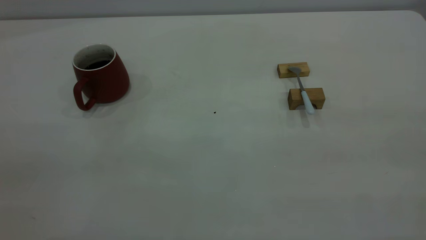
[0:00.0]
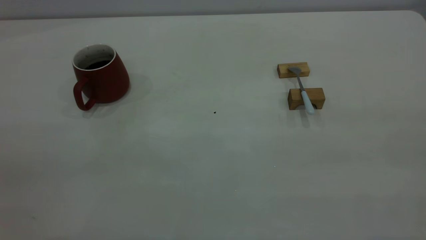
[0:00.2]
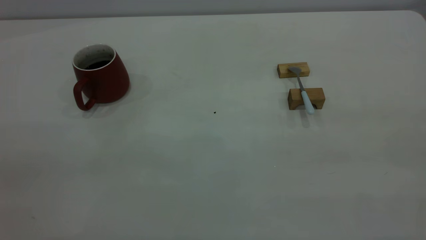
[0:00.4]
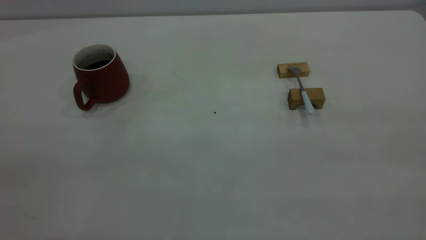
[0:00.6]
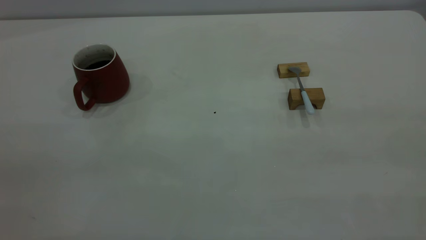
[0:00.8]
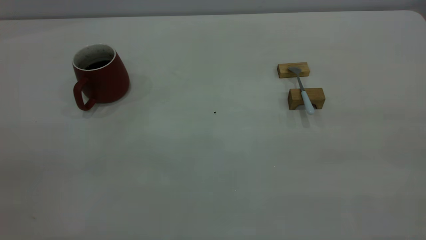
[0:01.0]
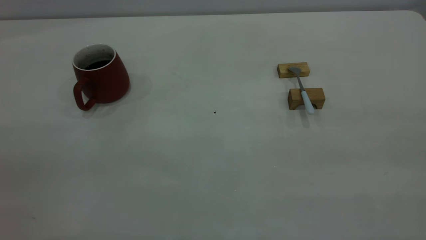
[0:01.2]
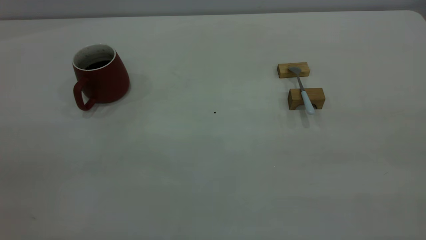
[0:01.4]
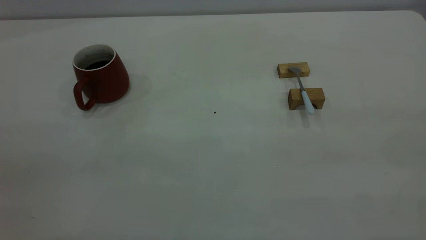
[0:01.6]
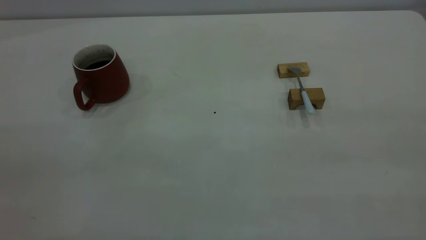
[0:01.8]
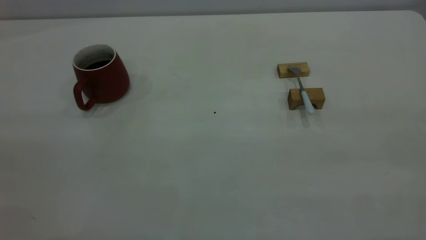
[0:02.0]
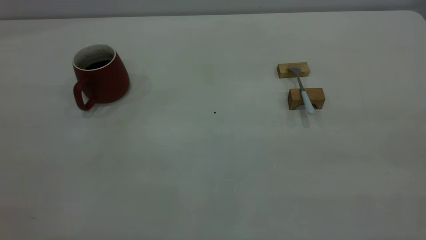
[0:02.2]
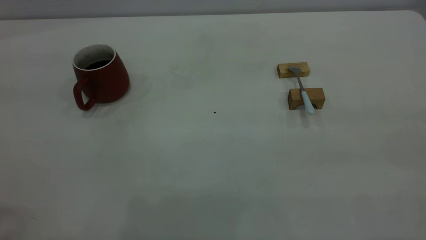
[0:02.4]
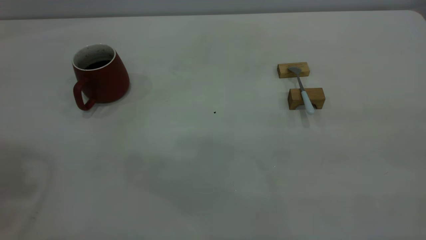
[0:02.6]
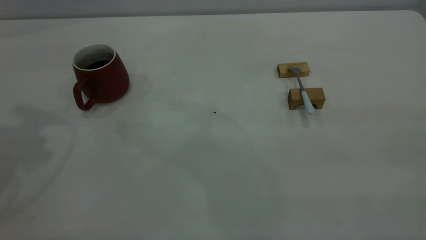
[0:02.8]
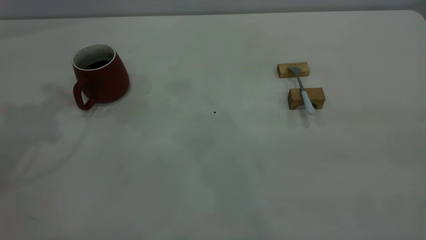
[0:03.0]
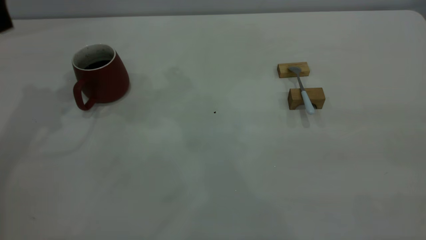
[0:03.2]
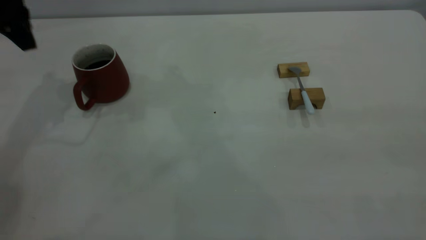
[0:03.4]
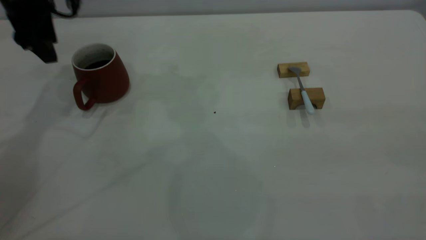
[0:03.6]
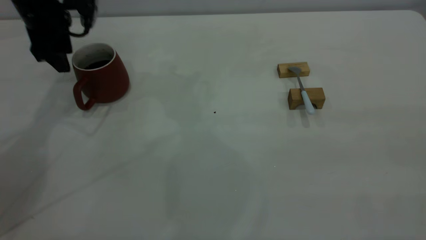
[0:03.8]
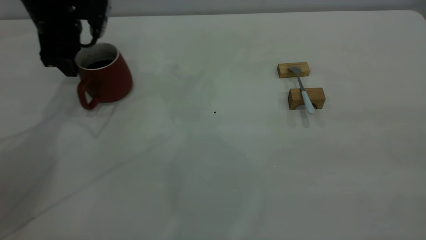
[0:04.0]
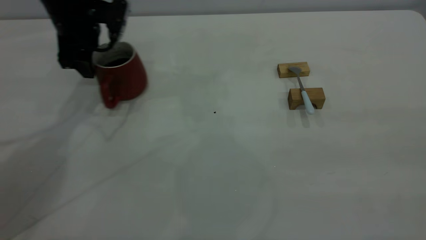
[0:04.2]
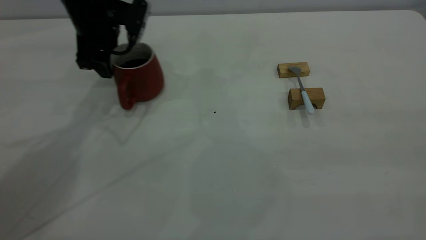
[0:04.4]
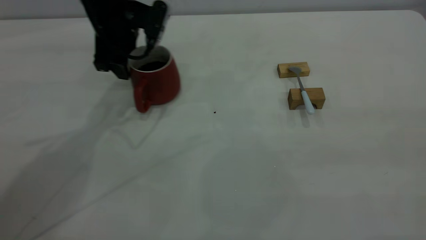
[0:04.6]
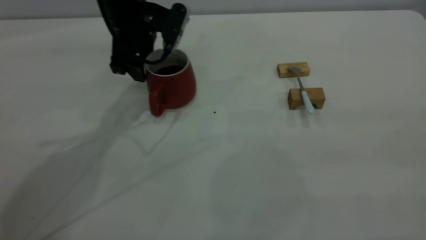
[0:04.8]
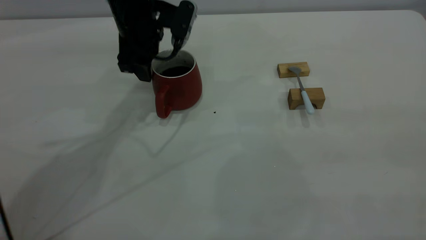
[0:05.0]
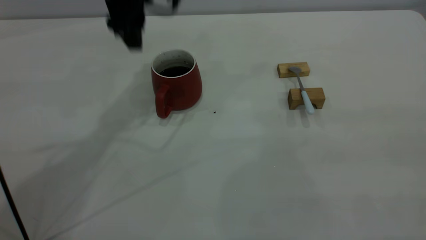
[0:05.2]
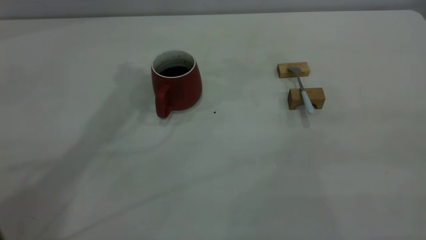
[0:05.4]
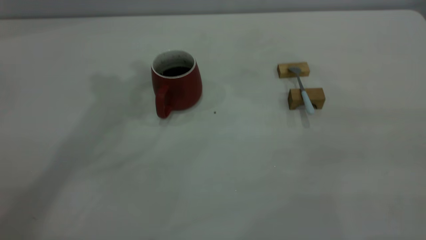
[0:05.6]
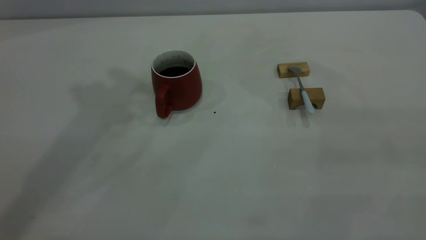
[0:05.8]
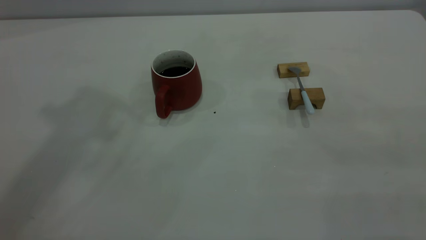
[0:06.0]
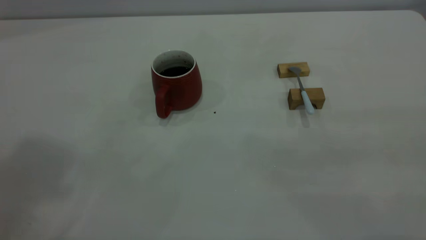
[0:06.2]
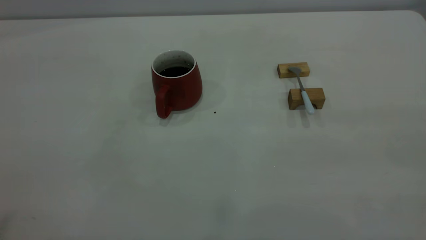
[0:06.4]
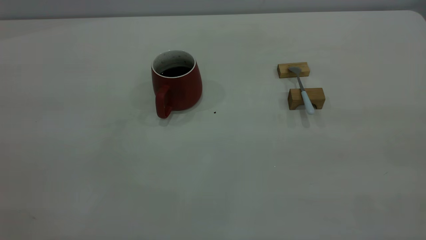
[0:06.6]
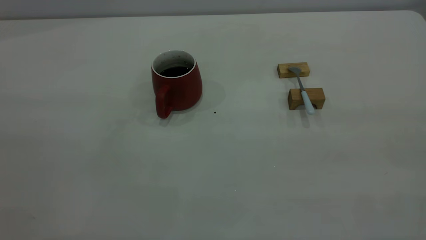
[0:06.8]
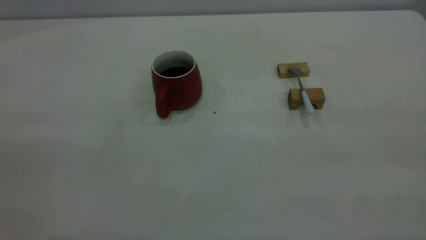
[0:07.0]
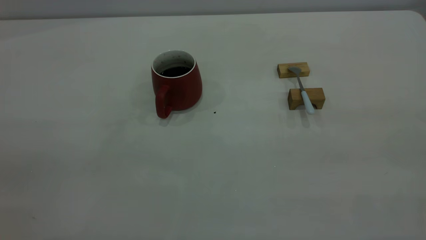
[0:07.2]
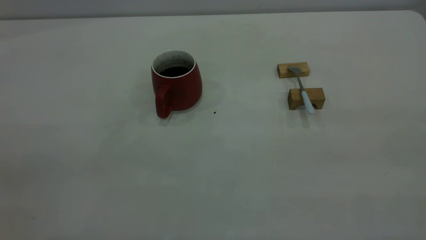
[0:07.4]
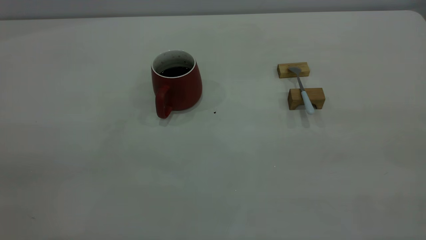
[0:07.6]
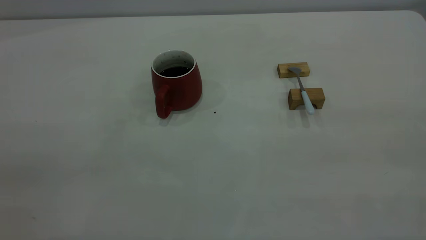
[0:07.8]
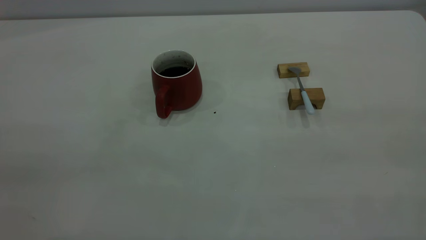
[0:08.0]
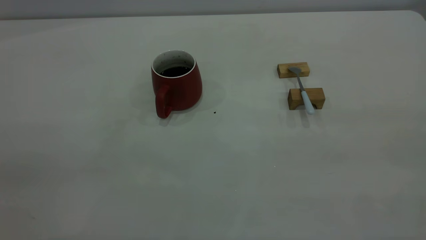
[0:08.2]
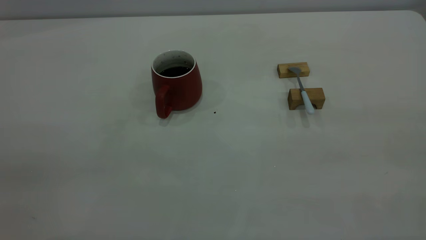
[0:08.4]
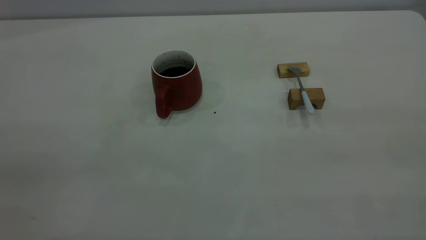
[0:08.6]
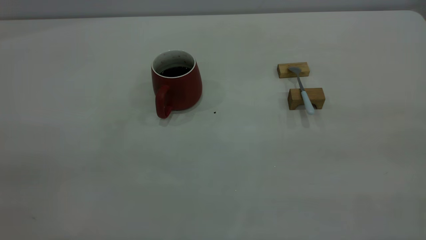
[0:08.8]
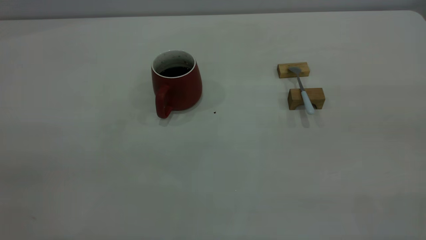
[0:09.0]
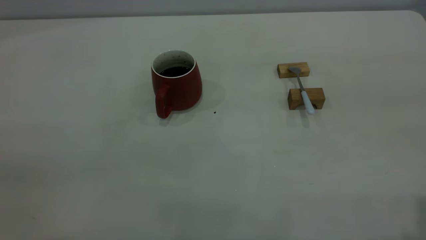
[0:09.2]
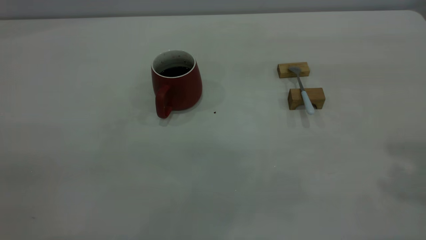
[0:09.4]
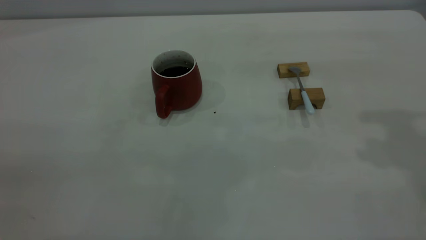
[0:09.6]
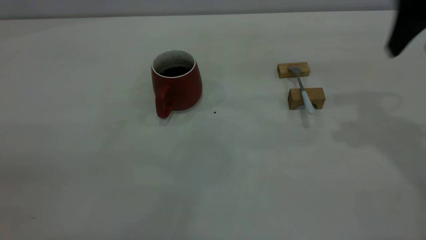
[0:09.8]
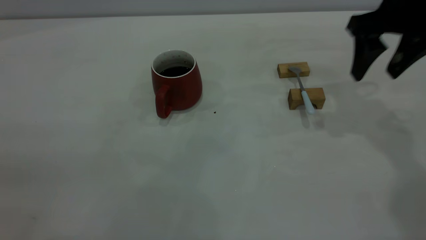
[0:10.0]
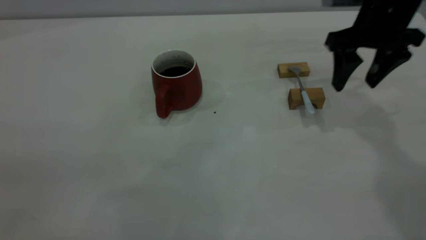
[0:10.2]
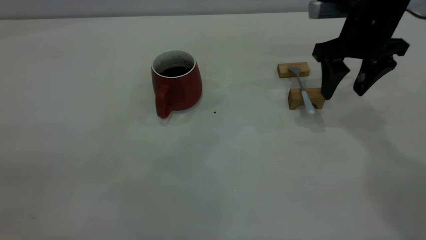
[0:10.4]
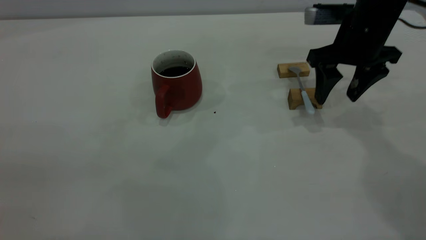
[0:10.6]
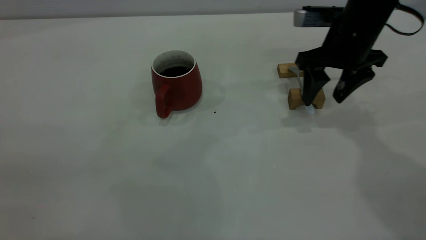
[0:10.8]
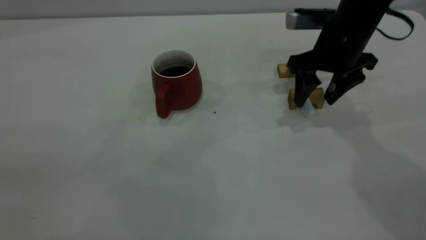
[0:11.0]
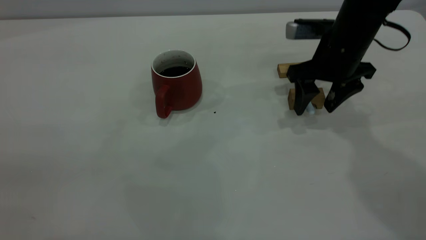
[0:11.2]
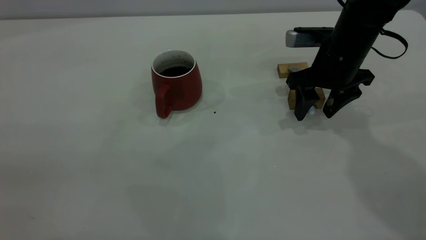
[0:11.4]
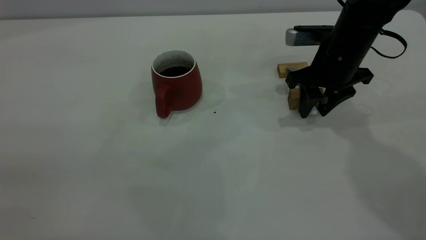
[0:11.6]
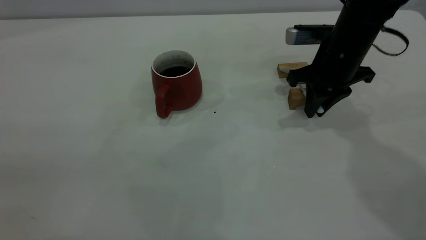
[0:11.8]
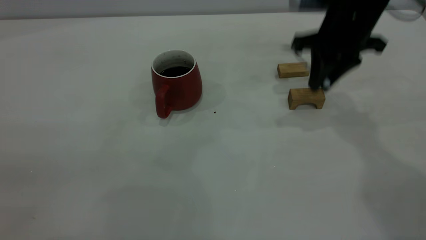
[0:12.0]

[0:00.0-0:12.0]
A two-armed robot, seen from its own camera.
Step, 0:00.0 to 0:05.0: Move the cup with coffee to the center of view.
Step, 0:05.2 to 0:11.8: Pick up the spoon.
0:00.0 to 0:01.6: The two grippers keep their place.
0:03.0 to 0:04.4: The left gripper goes some 25 cm downward, to the right and forward.
0:04.4 to 0:06.0: The left gripper travels upward and backward by about 40 cm.
0:09.0 to 0:10.4: The right gripper is displaced forward and downward by about 40 cm.
0:10.4 to 0:12.0: The right gripper closes.

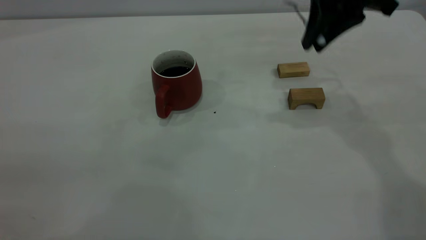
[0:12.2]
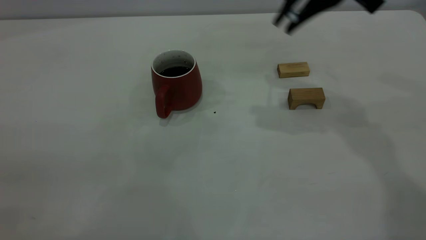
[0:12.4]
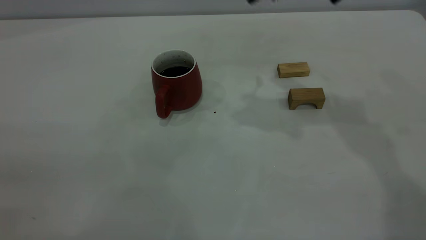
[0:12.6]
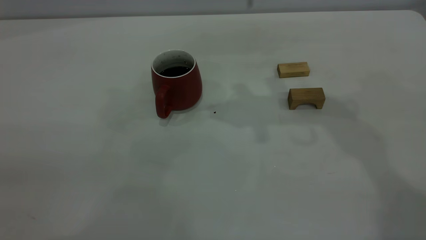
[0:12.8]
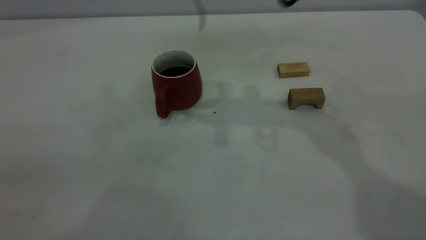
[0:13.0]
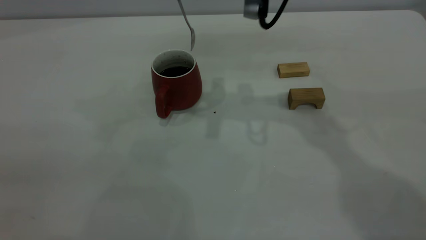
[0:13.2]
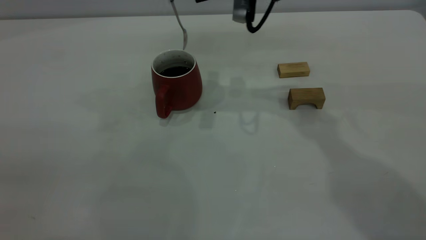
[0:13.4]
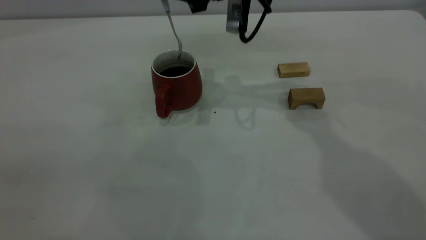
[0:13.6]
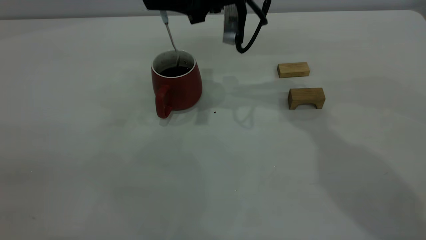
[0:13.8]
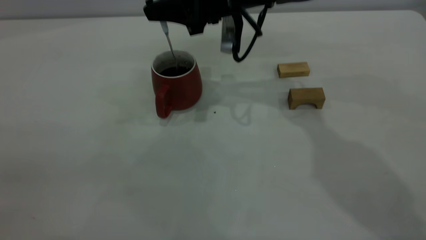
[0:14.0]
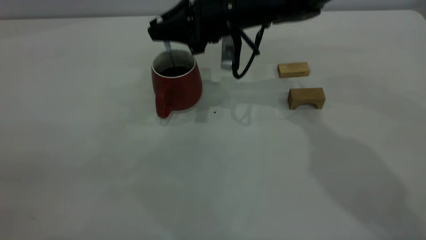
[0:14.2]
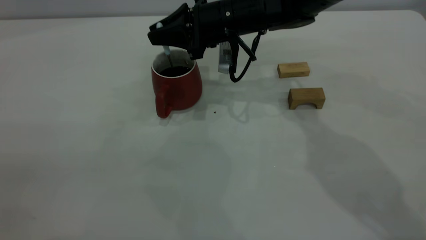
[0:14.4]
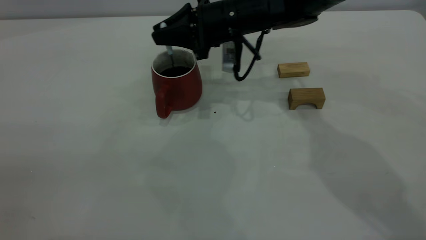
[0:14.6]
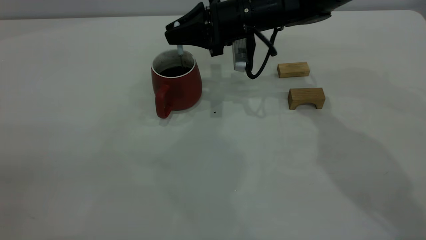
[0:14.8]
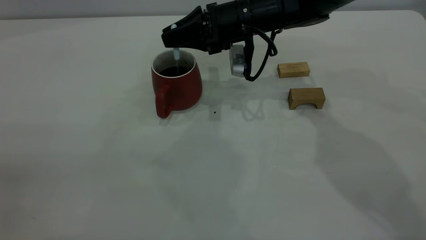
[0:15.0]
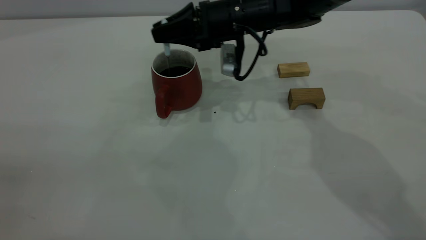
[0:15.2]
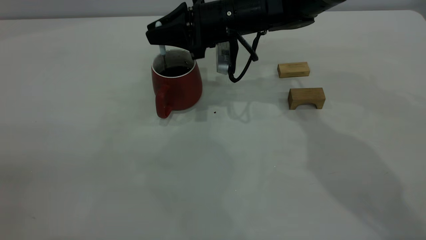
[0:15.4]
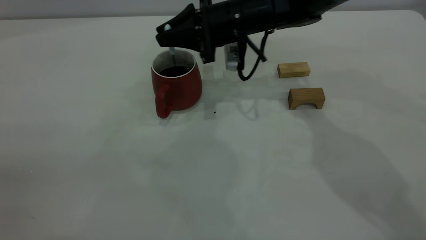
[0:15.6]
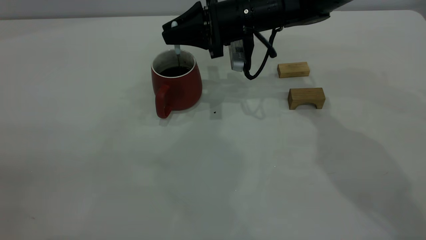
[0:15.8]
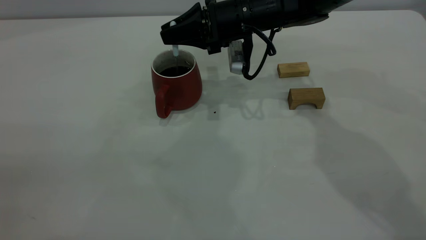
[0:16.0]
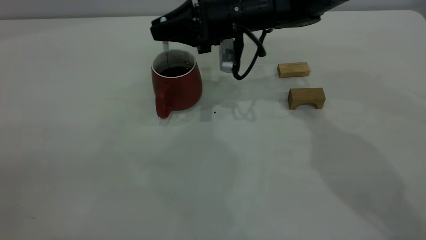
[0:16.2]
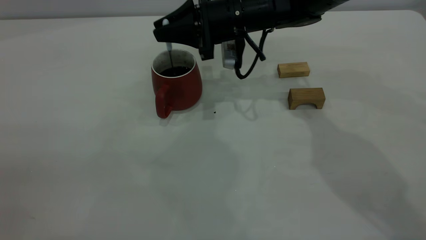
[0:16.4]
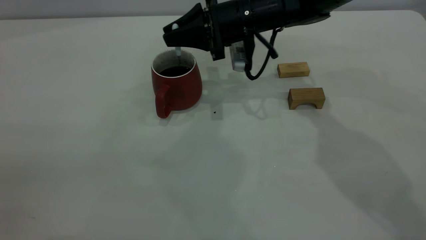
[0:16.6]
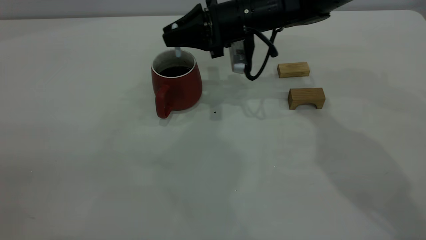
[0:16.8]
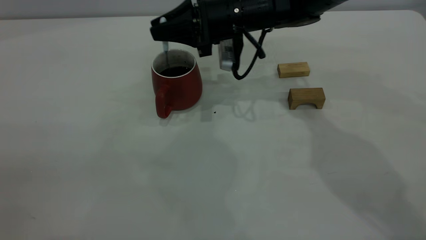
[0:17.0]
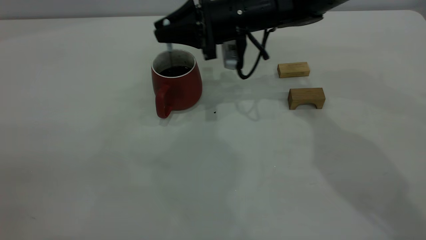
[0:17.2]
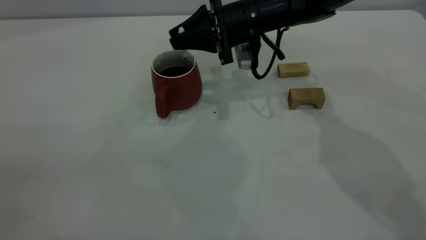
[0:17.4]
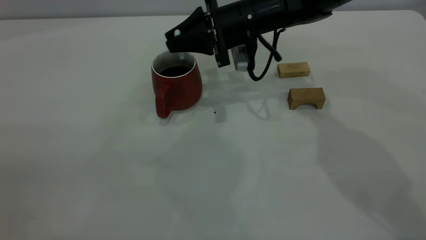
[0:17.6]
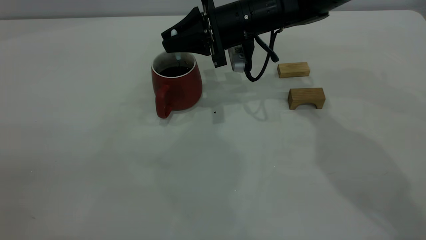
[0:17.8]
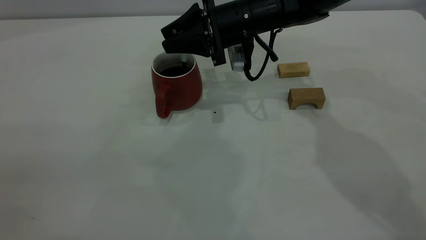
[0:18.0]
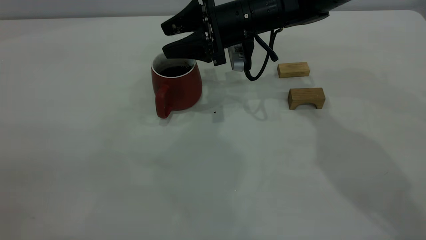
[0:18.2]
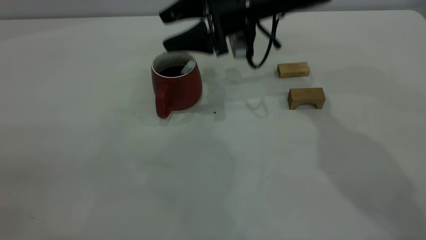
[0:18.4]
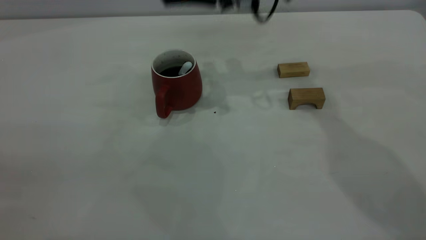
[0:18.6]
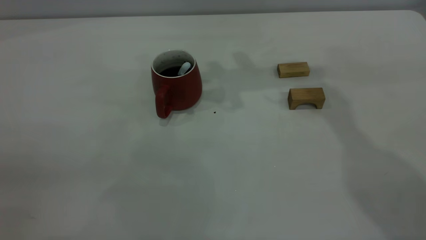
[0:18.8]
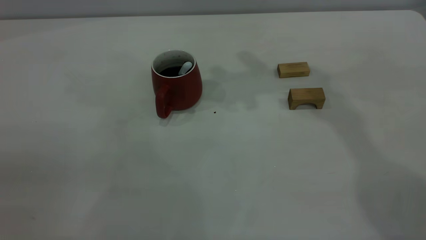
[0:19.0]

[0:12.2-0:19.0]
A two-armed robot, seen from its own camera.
Step, 0:12.2 to 0:18.2: Stir the coffee in the cup.
0:12.2 to 0:13.6: The right gripper is displaced to the left and forward by some 15 cm.
0:13.6 to 0:15.0: The right gripper goes approximately 10 cm downward.
0:15.0 to 0:17.6: The grippers move only a little.
0:17.6 to 0:19.0: The right gripper moves upward, roughly 25 cm, and opens and closes again.
